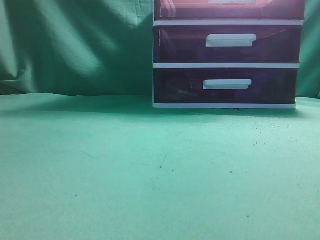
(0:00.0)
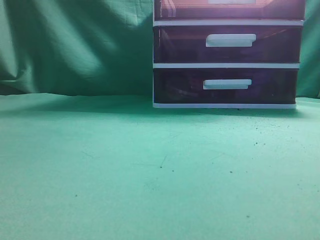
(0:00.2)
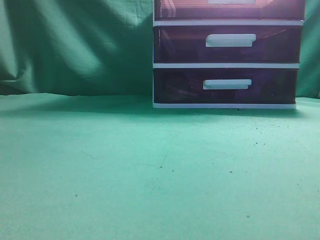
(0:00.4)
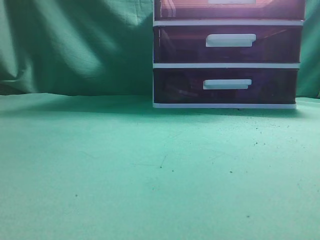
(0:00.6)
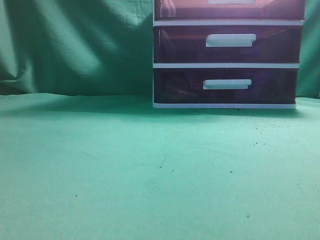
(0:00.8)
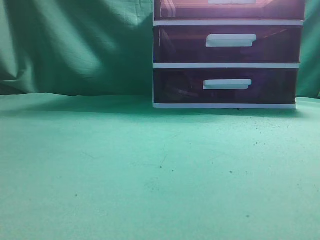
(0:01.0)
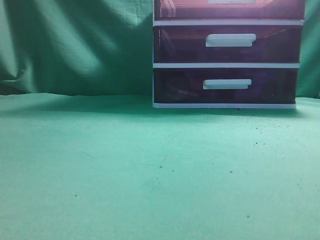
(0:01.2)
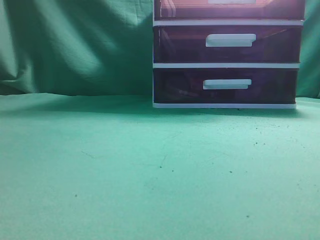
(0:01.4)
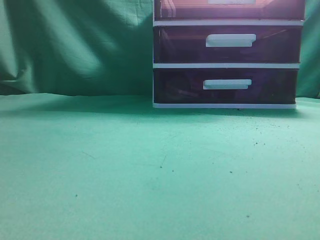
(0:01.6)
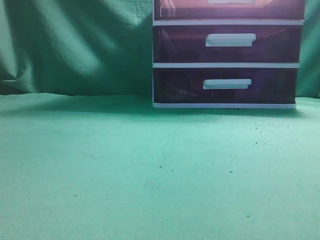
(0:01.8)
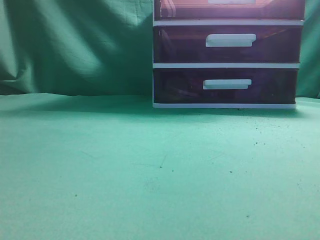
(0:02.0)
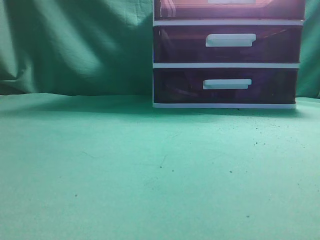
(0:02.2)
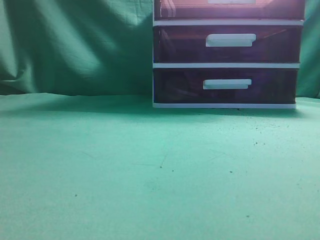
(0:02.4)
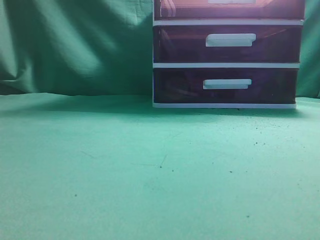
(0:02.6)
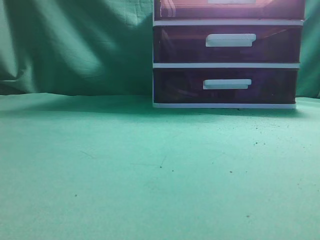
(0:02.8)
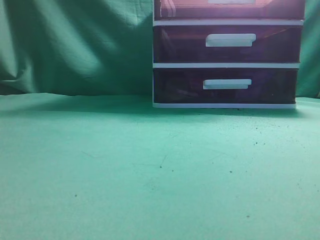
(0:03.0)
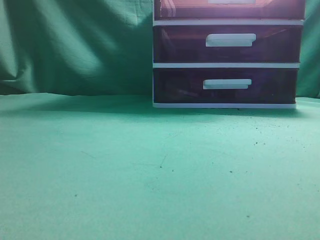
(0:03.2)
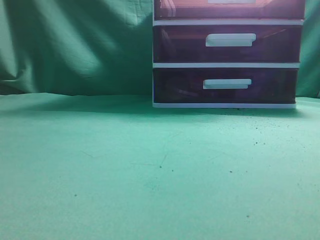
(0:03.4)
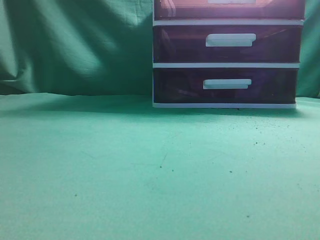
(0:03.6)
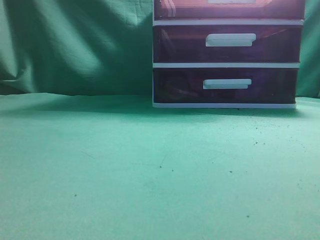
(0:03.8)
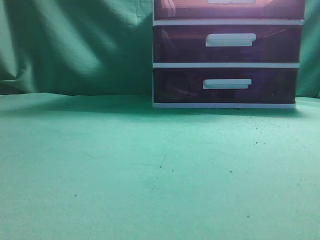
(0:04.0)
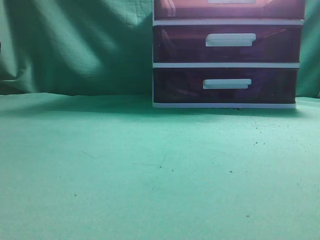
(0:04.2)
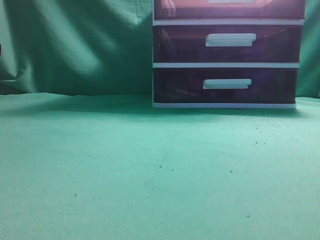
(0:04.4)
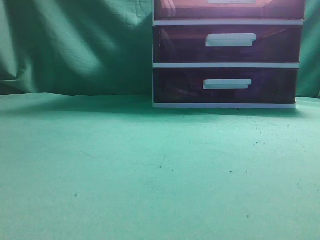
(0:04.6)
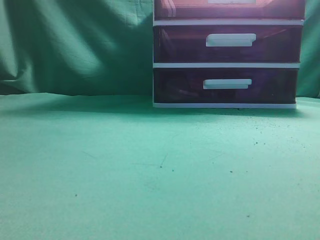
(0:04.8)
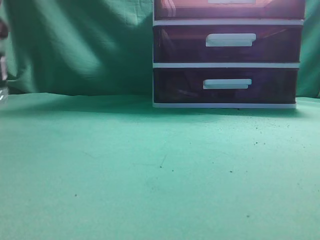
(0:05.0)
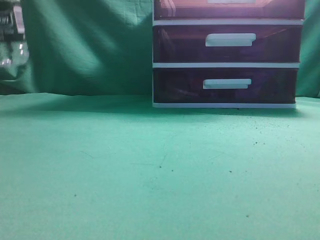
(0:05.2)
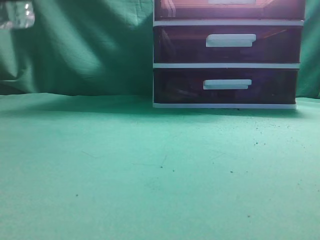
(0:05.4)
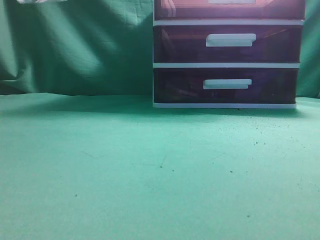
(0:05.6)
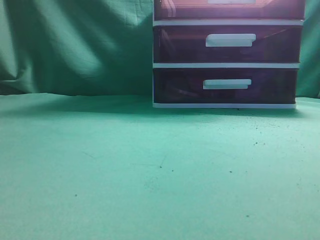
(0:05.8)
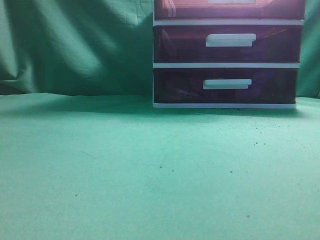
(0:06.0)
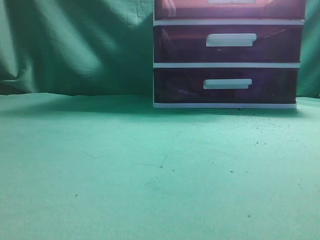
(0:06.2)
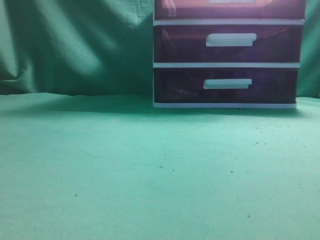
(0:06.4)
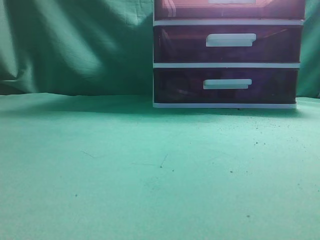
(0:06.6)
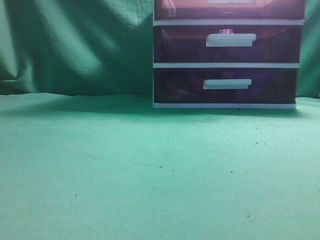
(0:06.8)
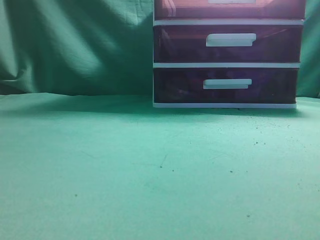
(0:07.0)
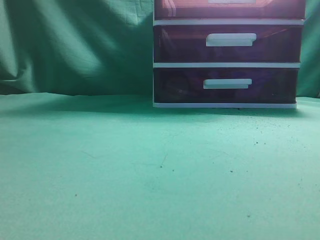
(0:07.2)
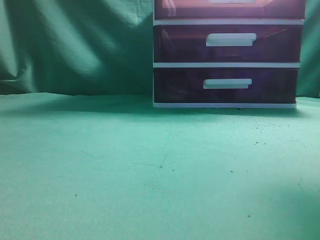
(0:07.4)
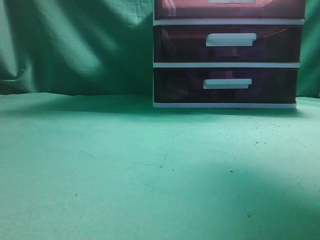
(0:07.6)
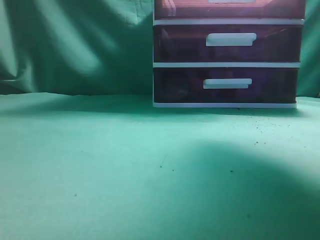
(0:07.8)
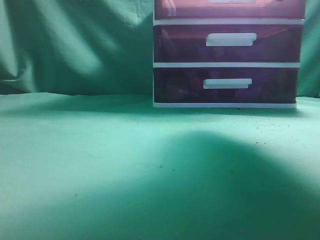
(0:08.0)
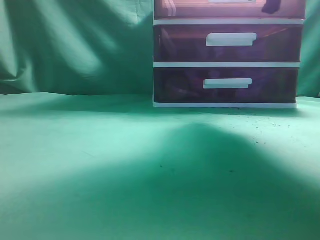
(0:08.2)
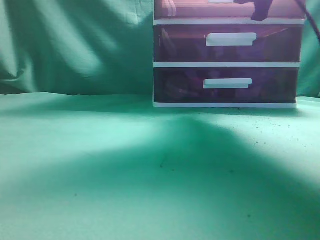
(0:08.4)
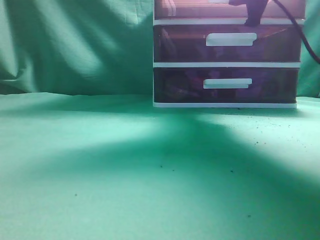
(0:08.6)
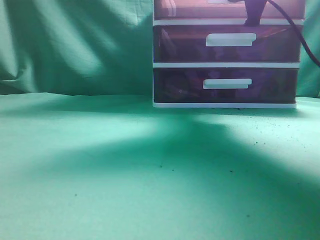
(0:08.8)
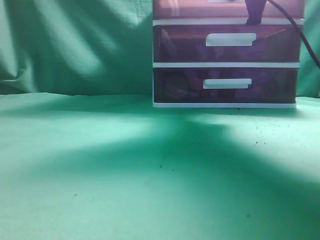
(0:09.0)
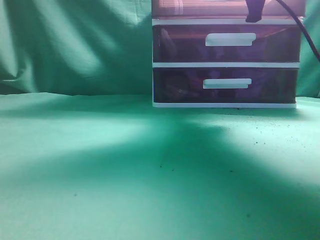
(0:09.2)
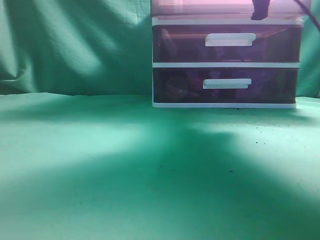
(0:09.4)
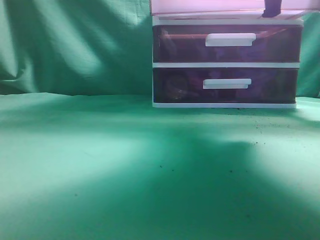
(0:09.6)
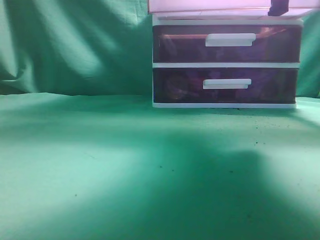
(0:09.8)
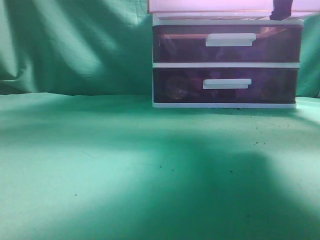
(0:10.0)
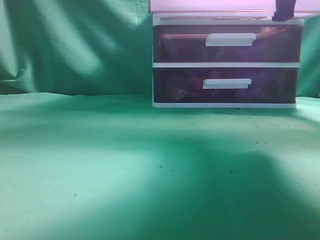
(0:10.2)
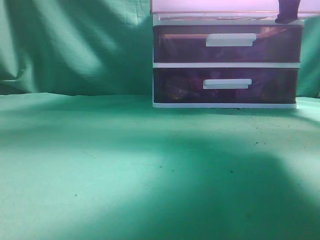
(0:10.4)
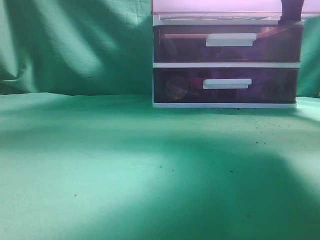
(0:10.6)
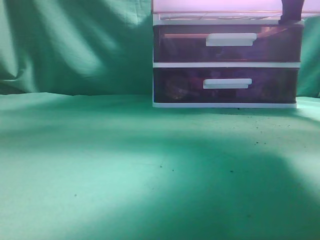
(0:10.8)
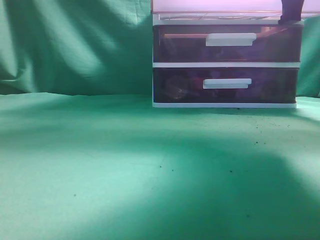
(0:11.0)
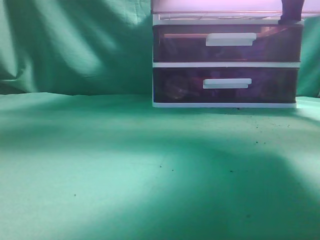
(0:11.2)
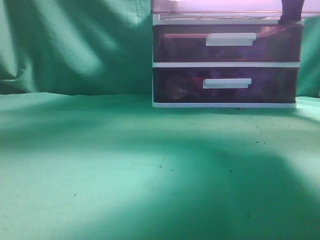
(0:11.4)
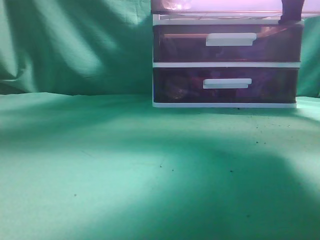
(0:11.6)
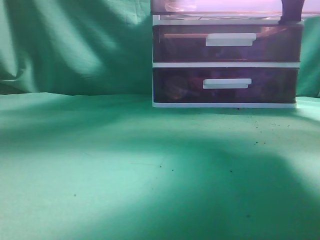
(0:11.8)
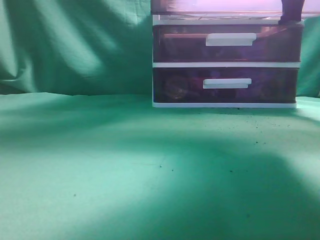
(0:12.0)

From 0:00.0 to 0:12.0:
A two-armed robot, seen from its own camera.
Task of the whole recording: place the water bottle into the drawer.
Step, from 0:00.0 to 0:10.6: Open the drawer.
From 0:06.0 to 0:07.6: The right gripper goes approximately 30 cm forward and upward.
From 0:07.6 to 0:09.0: The right gripper shifts approximately 15 cm forward, downward and to the left, and opens, then closes again.
From 0:09.0 to 0:10.4: The right gripper travels backward by roughly 10 cm.
From 0:10.4 to 0:12.0: The left gripper is displaced forward and to the right by roughly 25 cm, and opens.

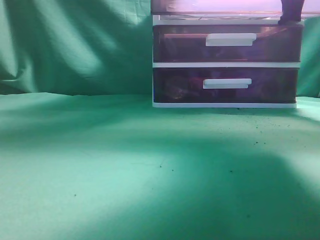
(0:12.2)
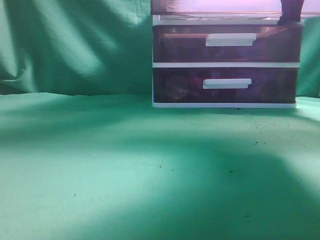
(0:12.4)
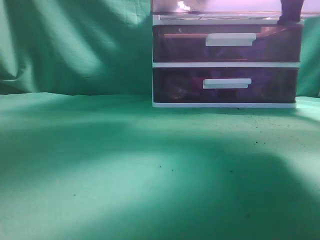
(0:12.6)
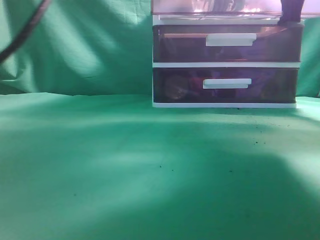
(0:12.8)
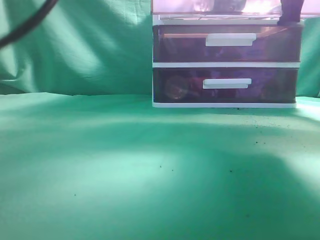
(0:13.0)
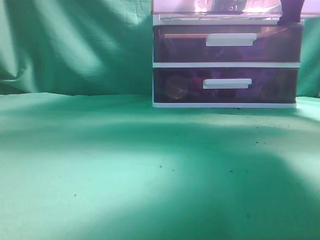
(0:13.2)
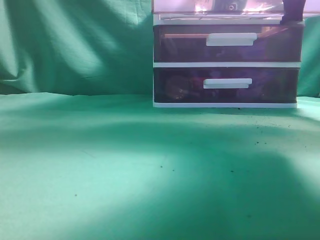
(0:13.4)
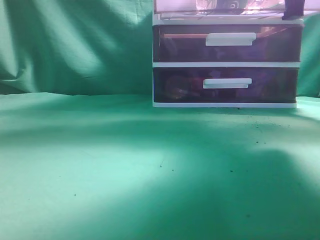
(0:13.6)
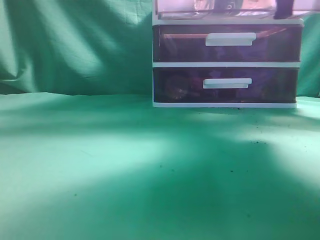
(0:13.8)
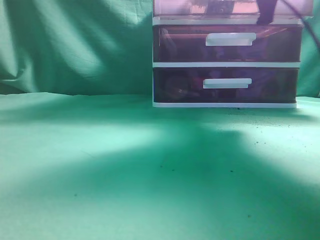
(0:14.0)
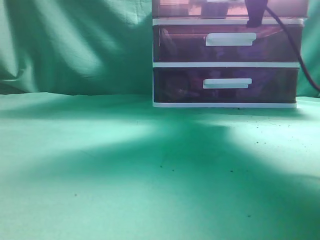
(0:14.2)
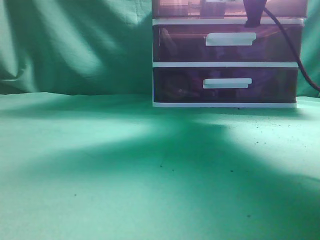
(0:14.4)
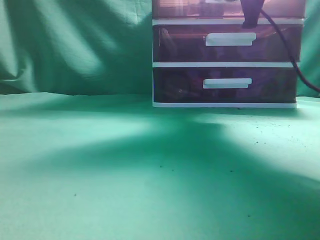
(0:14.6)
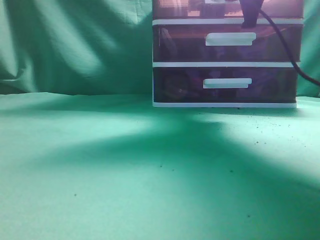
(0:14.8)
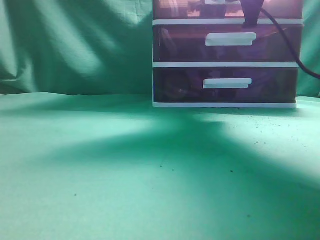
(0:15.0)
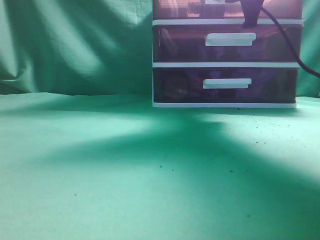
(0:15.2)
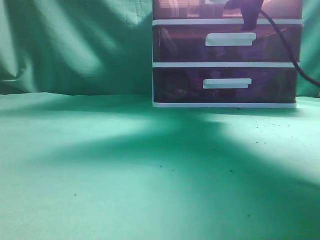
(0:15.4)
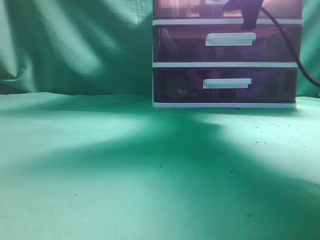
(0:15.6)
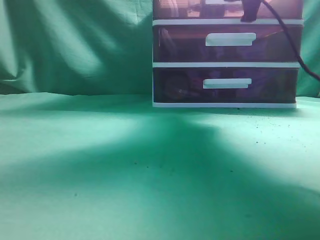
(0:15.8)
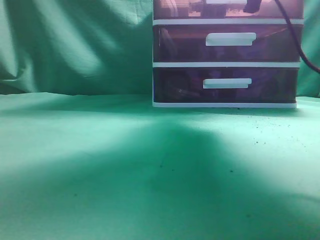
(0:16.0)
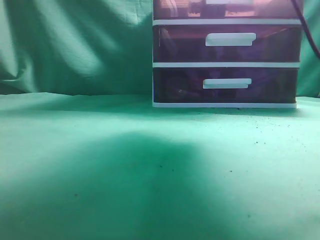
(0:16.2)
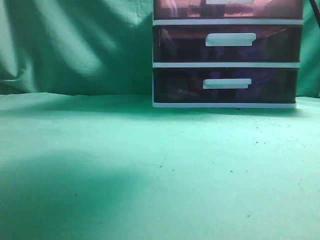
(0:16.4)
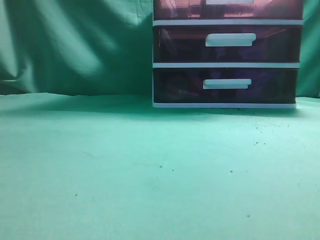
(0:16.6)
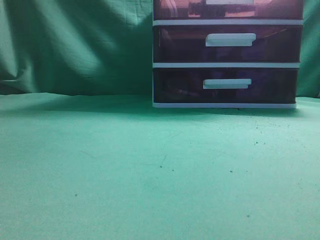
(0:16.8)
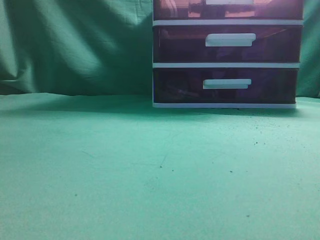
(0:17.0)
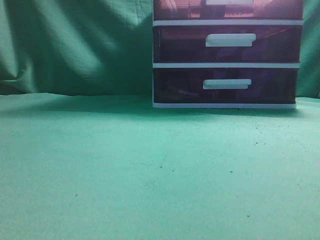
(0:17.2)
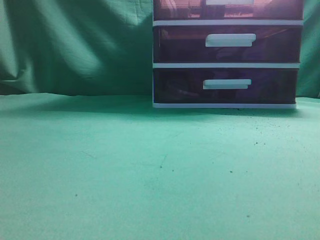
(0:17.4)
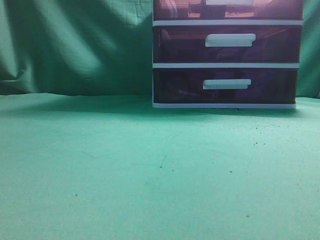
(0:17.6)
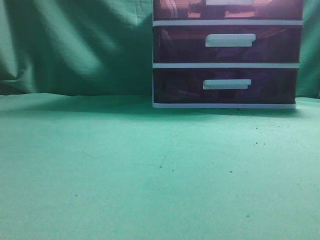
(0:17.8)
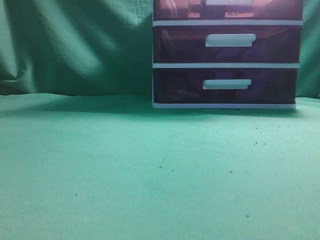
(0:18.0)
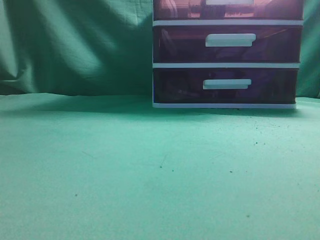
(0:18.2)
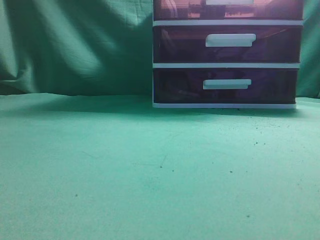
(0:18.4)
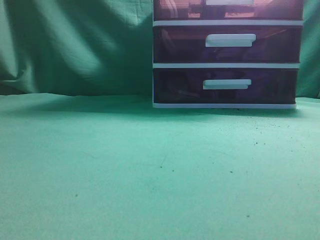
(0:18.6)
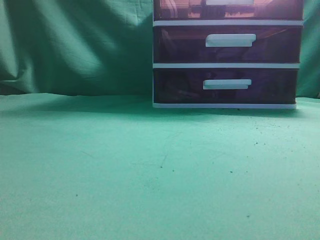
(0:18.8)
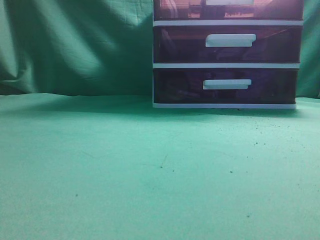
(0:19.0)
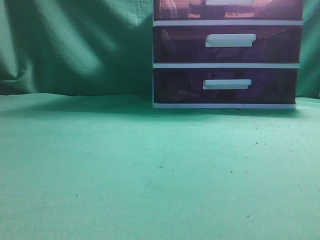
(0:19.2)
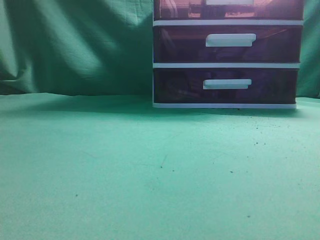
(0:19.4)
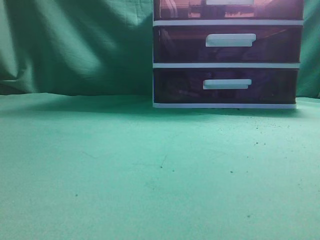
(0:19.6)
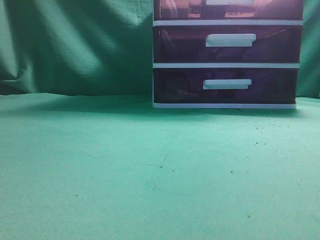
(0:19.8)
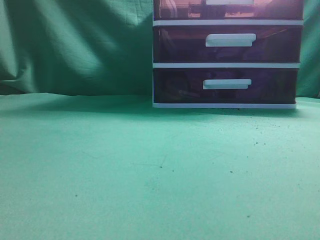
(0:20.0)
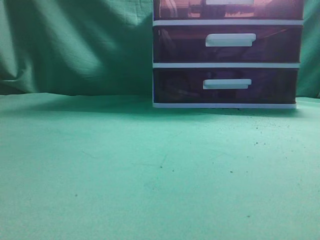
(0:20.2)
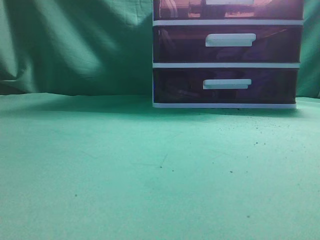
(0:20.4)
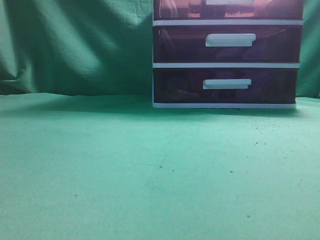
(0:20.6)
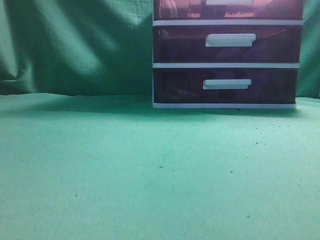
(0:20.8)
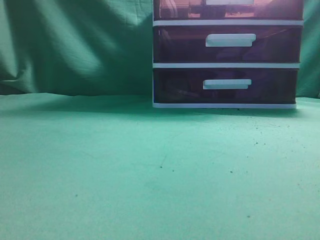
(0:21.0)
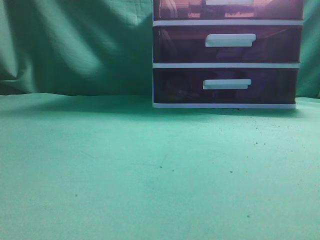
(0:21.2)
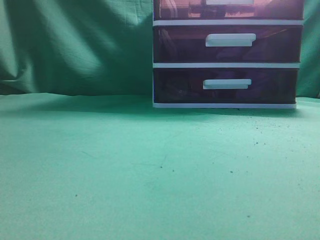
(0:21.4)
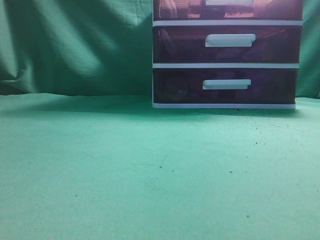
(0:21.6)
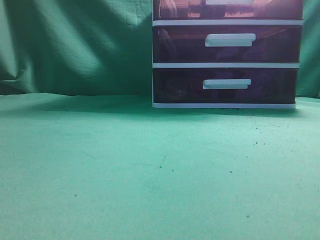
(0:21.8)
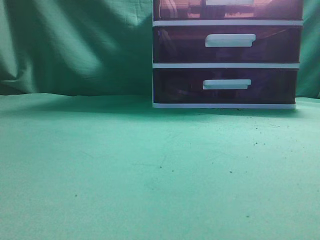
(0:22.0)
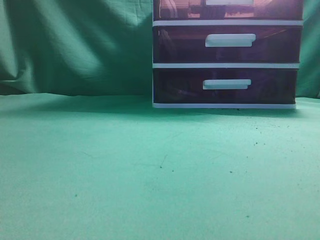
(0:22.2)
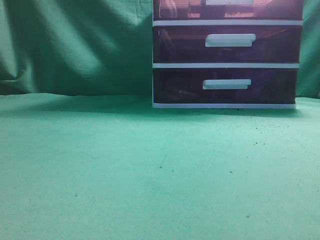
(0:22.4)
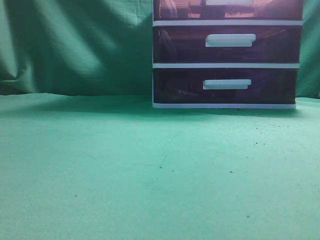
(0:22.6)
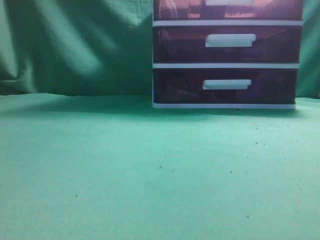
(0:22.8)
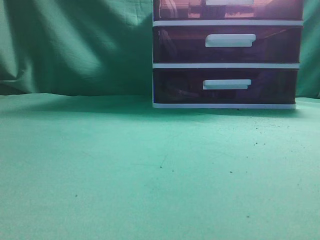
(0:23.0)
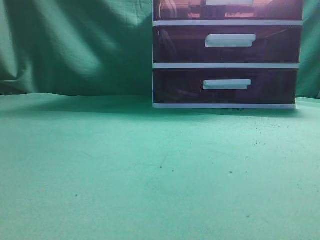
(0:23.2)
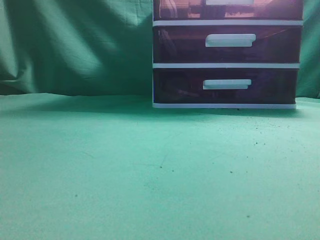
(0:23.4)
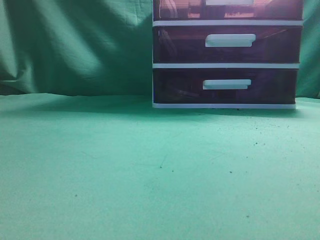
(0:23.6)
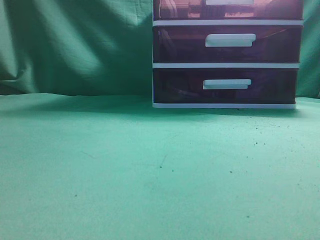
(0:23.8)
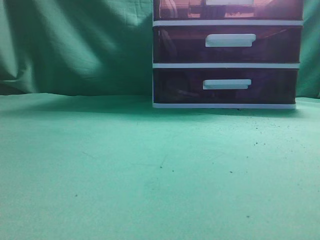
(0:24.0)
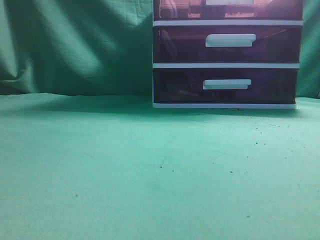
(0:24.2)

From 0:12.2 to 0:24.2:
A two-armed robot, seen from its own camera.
Task of the whole recording: place the water bottle into the drawer.
Step, from 0:13.4 to 0:15.8: Close the drawer.
From 0:12.2 to 0:13.8: The left gripper heads upward, covering about 5 cm, and closes up.
From 0:13.8 to 0:15.2: The right gripper moves forward, some 10 cm.
From 0:15.2 to 0:16.6: The left gripper goes about 10 cm backward and upward, while the right gripper travels backward by about 15 cm, and opens up.
From 0:16.6 to 0:18.2: The left gripper moves backward, downward and to the left, roughly 25 cm. The right gripper heads backward and to the right, covering some 15 cm, and closes.
